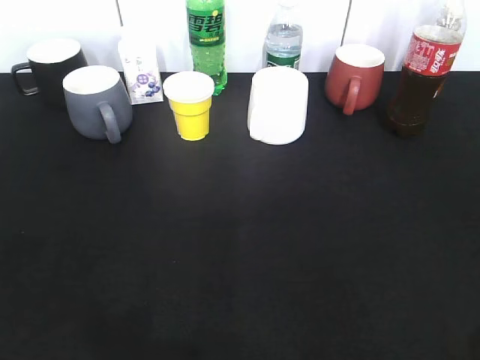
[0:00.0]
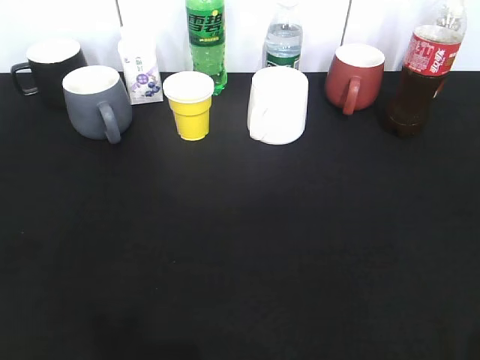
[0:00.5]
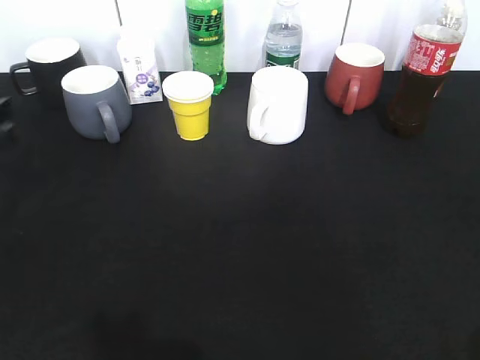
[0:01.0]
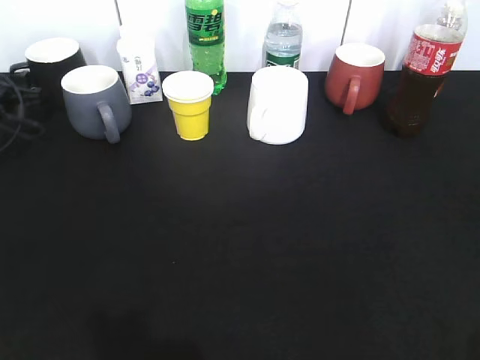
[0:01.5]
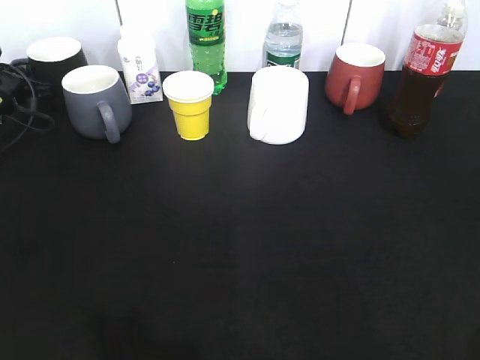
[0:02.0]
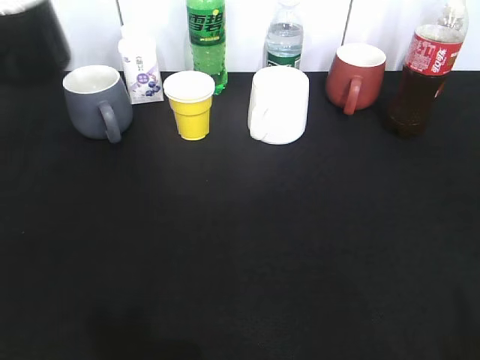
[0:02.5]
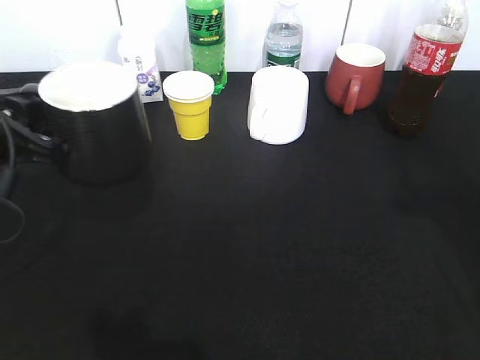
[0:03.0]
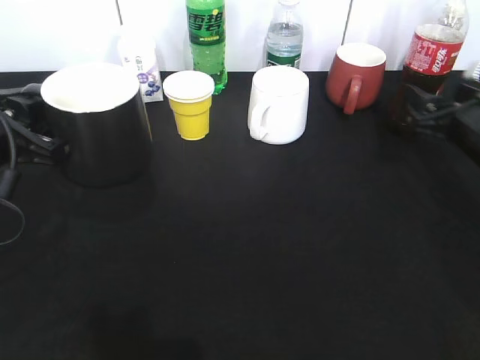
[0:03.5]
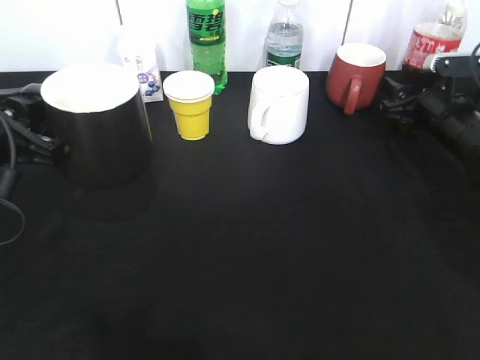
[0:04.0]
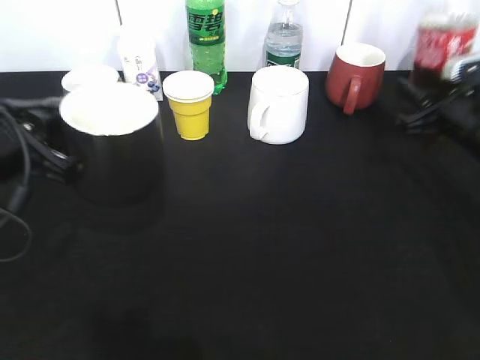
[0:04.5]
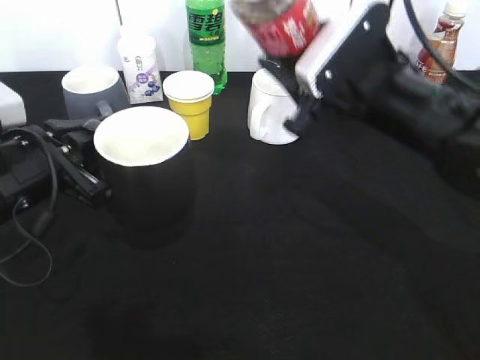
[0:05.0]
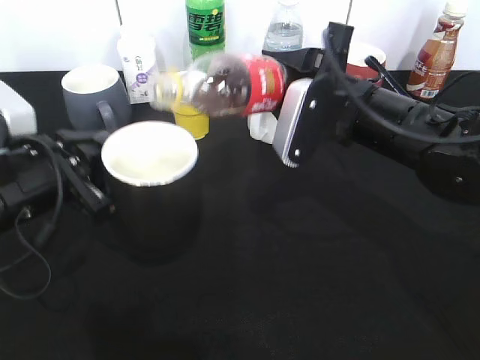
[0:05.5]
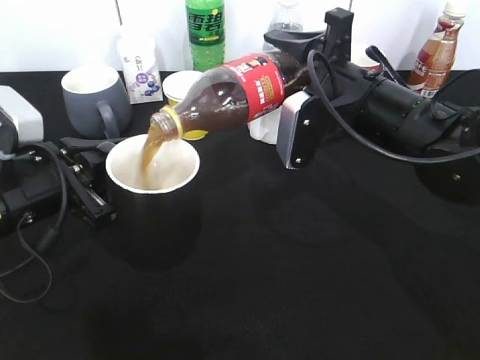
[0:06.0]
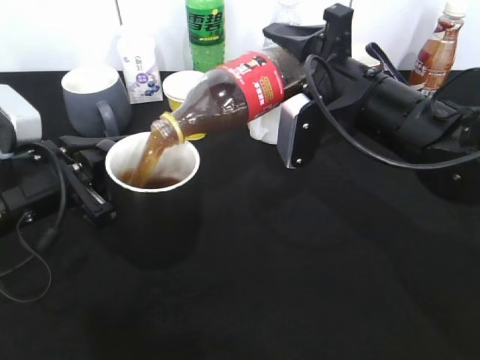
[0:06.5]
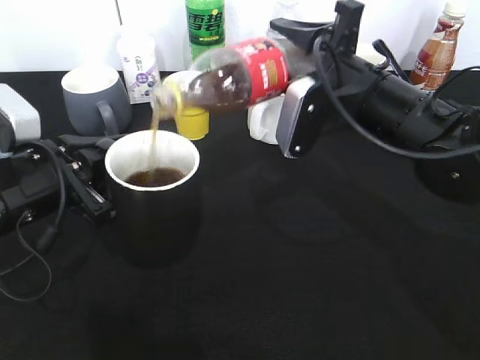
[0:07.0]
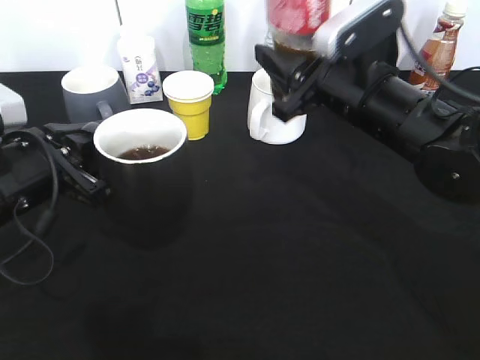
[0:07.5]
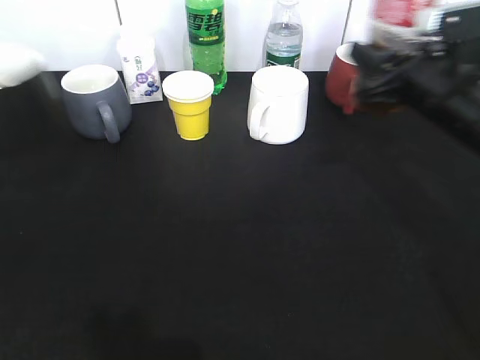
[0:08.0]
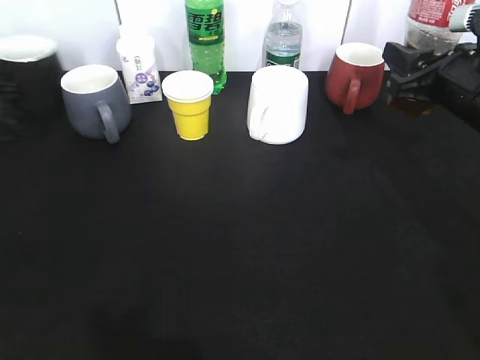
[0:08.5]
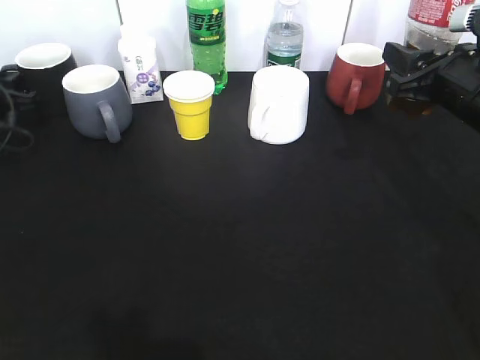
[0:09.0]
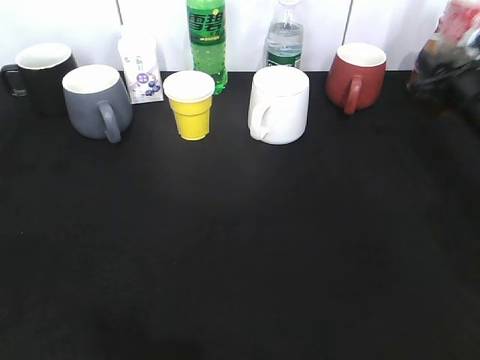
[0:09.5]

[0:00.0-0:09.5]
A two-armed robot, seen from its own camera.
Step, 0:02.0 to 0:03.0: Lift the black cup with left gripper.
Step, 0:03.5 to 0:04.0: Grasp the bottle with cola with right gripper.
Step, 0:04.5 to 0:07.0: Pour the cola from bottle to cup with right gripper.
Step, 0:07.5 to 0:09.0: Place the black cup on the table with left gripper.
0:00.0 to 0:02.0: The left gripper goes roughly 50 cm forward, and closes up.
0:02.0 to 0:04.0: The left gripper heads backward, to the right and upward, covering about 30 cm. Meanwhile the right gripper shifts some 40 cm forward and downward, and opens and closes again.
0:04.0 to 0:05.5: The left gripper shifts by roughly 5 cm, while the right gripper goes some 20 cm to the left, backward and upward, and closes.
0:07.5 to 0:09.5: The left gripper travels to the left and upward by approximately 15 cm, travels forward and back again, about 20 cm each way, and opens. Meanwhile the right gripper is displaced to the right and forward by some 20 cm.

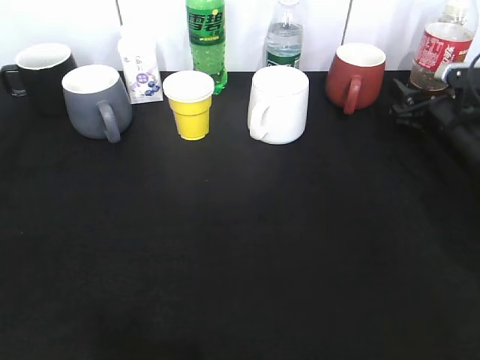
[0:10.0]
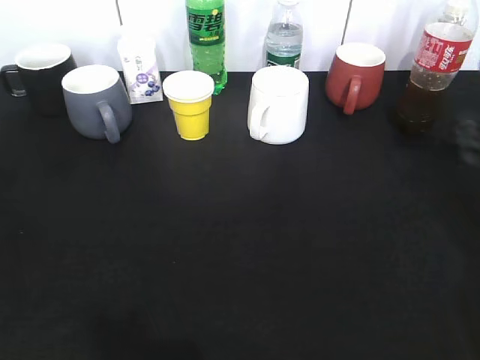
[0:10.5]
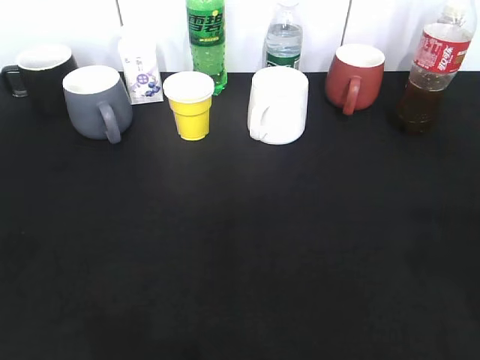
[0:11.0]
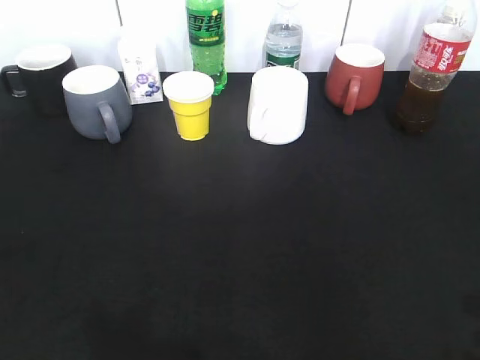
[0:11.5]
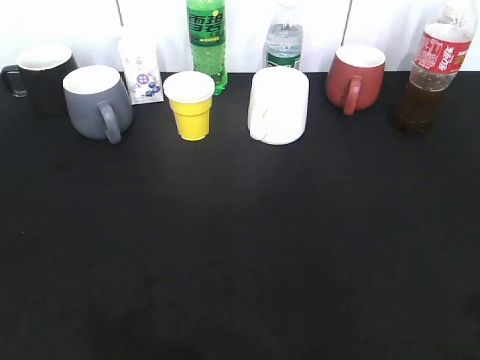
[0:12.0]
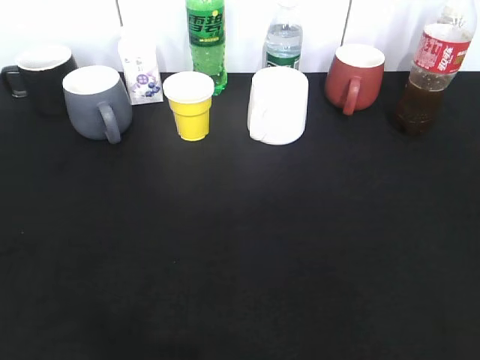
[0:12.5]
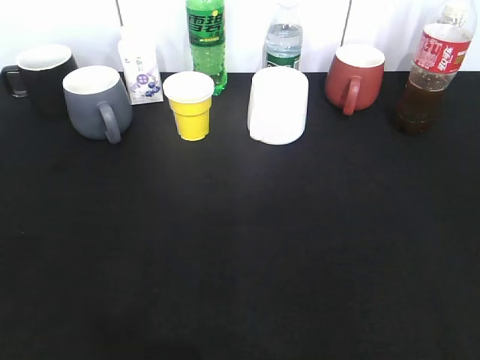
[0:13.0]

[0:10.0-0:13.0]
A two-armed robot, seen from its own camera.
0:10.0 to 0:11.5: The left gripper travels backward by approximately 25 cm, and opens up; the right gripper travels backward and upward by about 40 cm.

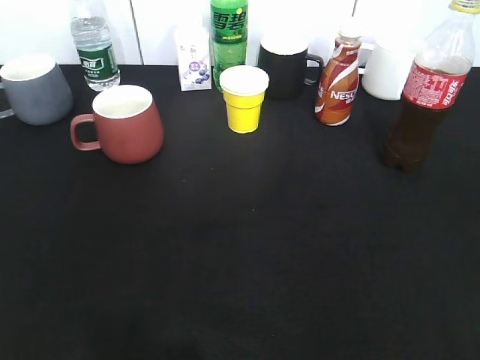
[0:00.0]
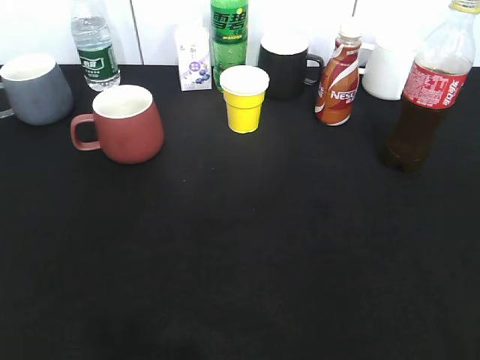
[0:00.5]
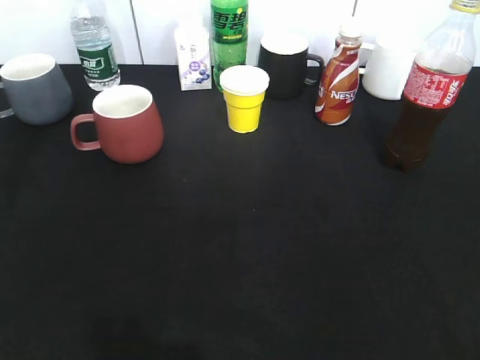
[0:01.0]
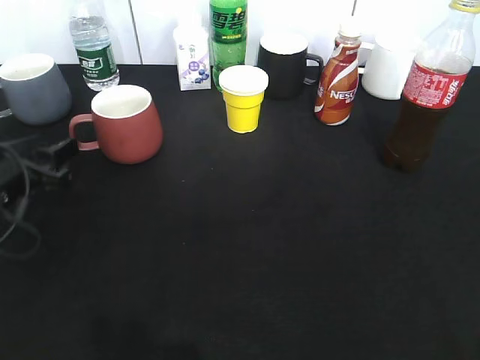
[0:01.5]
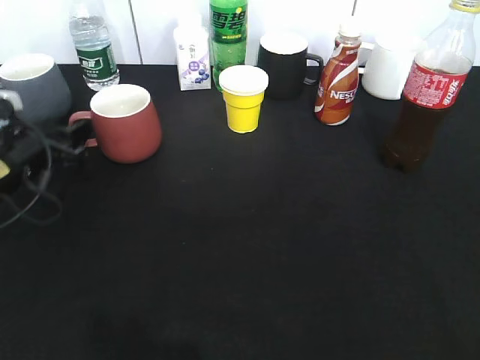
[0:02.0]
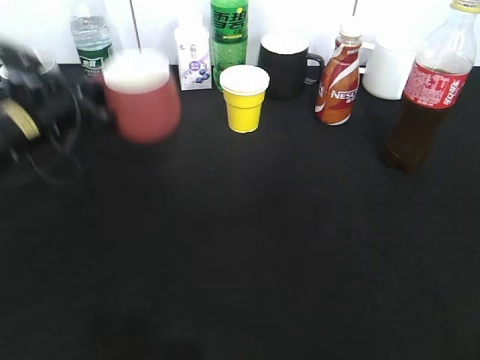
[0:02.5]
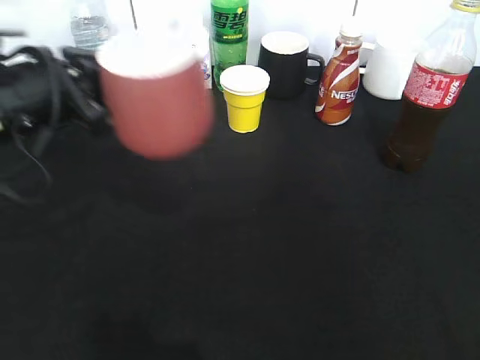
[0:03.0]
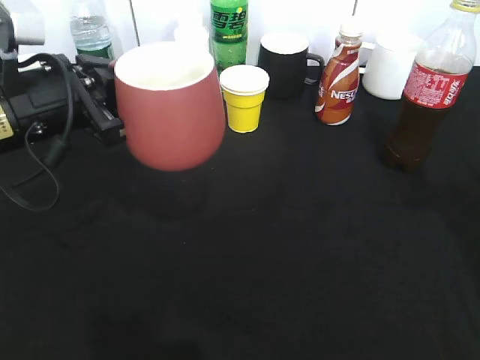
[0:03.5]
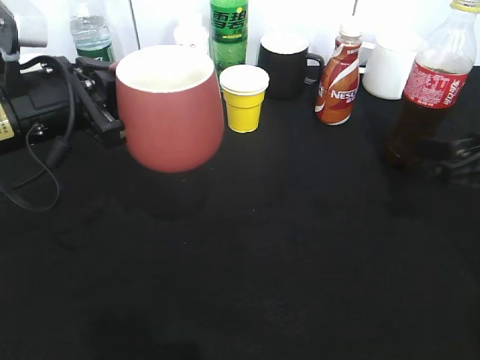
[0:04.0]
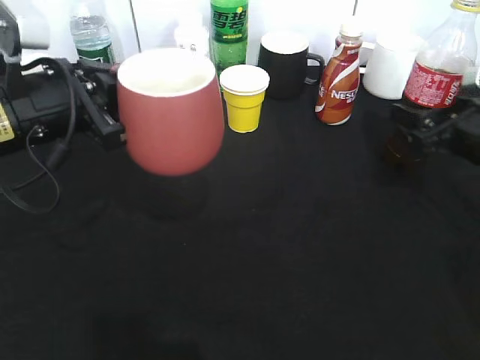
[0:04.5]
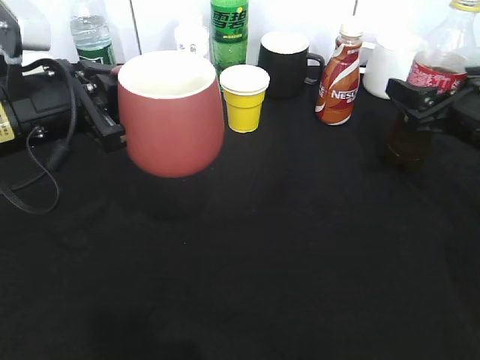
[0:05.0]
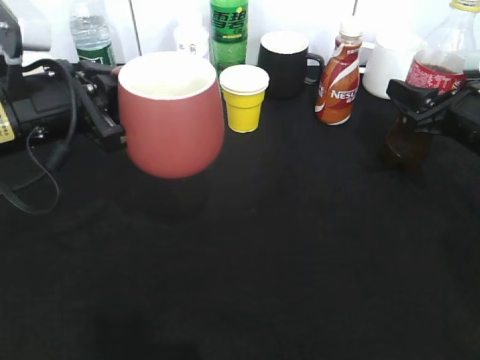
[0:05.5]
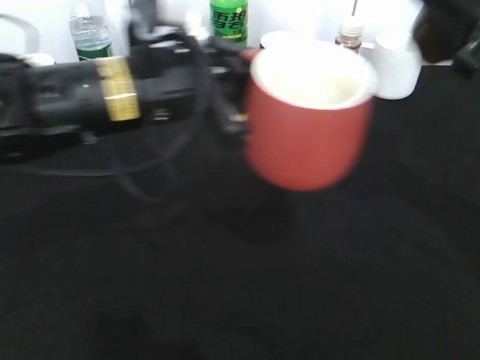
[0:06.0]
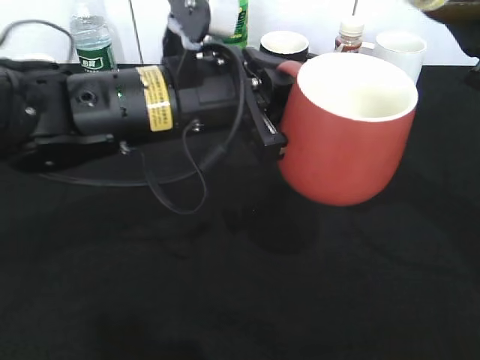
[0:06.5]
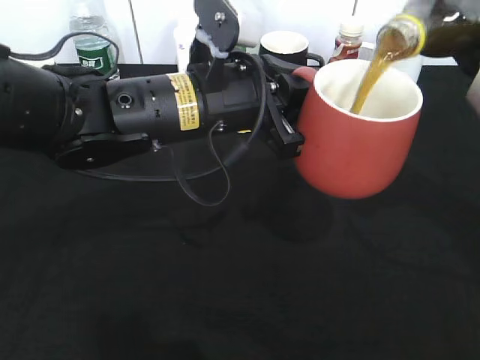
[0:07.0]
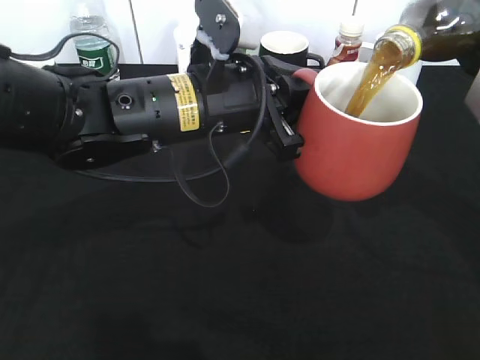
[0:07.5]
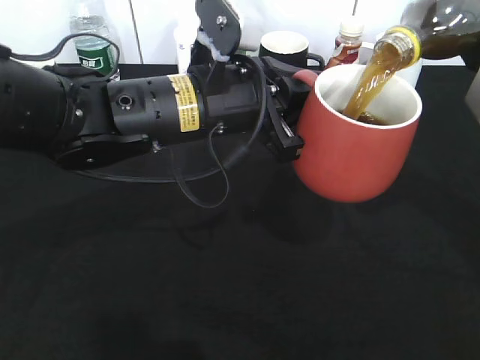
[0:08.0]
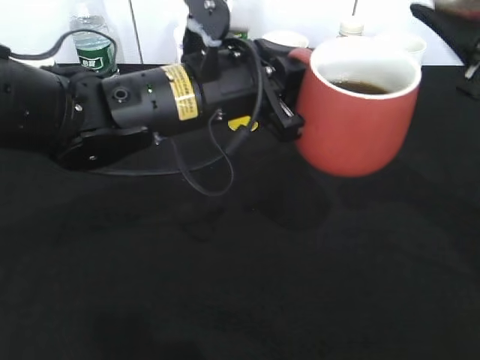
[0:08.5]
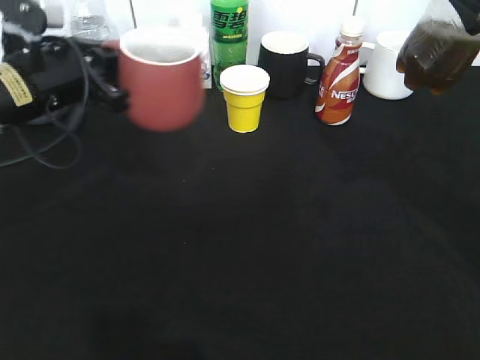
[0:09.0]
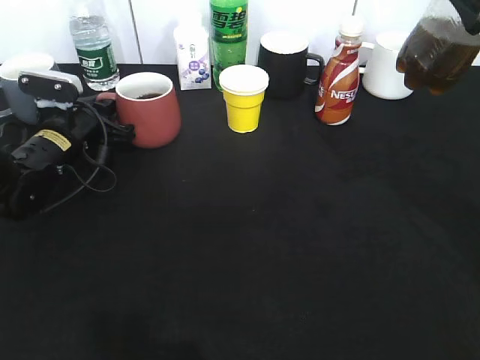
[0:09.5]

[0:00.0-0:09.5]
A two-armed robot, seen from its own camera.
Step, 0:00.0 to 0:02.0: Grasp the red cup with left gripper.
Step, 0:02.5 to 0:03.0: Lift the red cup with left gripper.
Step, 0:03.5 to 0:05.0: Grasp the bottle with cola with right gripper.
Step, 0:05.5 to 0:08.0: Pour the cola from bottle to cup with right gripper.
0:00.0 to 0:02.0: The left gripper shifts about 35 cm forward and downward, and opens up.
0:02.0 to 0:04.0: The left gripper shifts about 15 cm upward, to the right and backward, and closes up; the right gripper shifts some 30 cm forward and downward.
0:04.0 to 0:05.5: The right gripper shifts about 10 cm forward, and closes.
0:05.5 to 0:07.5: The left gripper shifts roughly 15 cm to the right. Meanwhile the right gripper is displaced upward and backward by some 15 cm.
0:07.5 to 0:09.5: The left gripper shifts roughly 25 cm to the left, downward and forward.

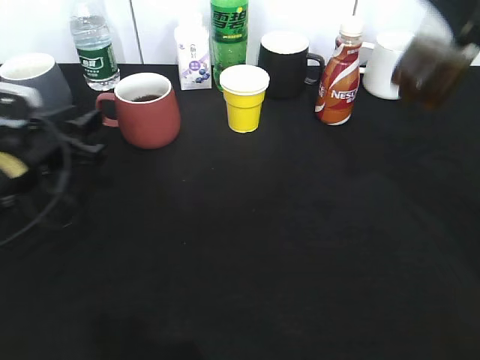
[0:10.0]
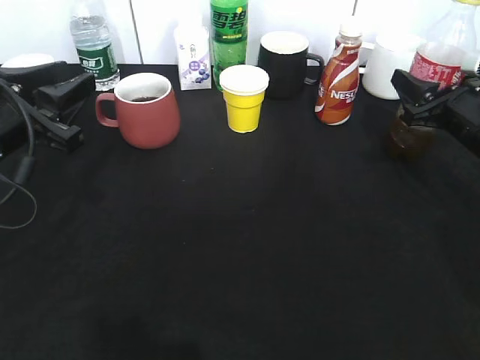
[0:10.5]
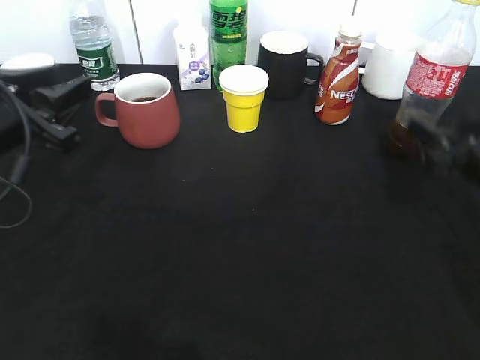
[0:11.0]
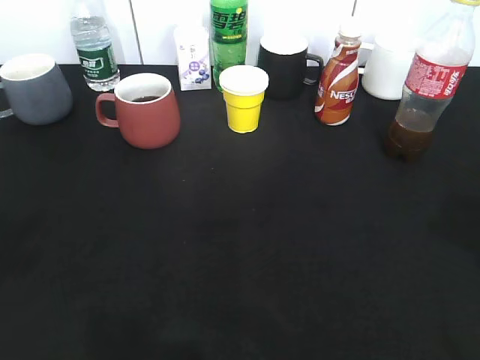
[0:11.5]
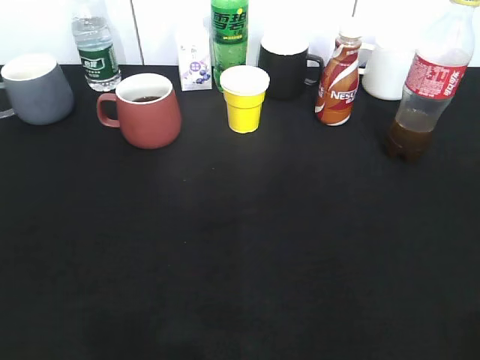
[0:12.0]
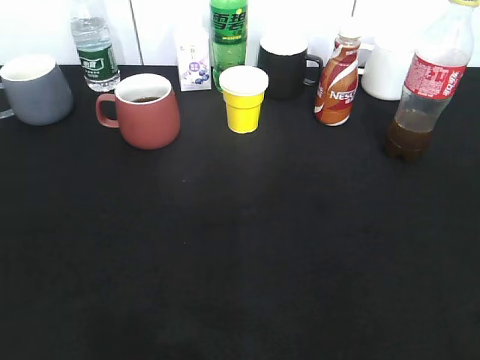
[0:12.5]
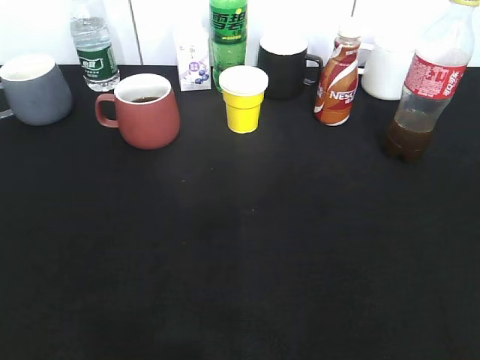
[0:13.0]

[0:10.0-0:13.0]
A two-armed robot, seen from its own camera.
Step, 0:10.5 to 0:11.0: Place the cola bottle on the table with right gripper.
0:10.0 to 0:11.5: The left gripper goes roughly 25 cm backward and upward; the right gripper heads backward and to the right, covering roughly 15 cm, and opens its fingers.
0:11.5 to 0:13.0: The left gripper shifts roughly 15 cm backward and to the left.
